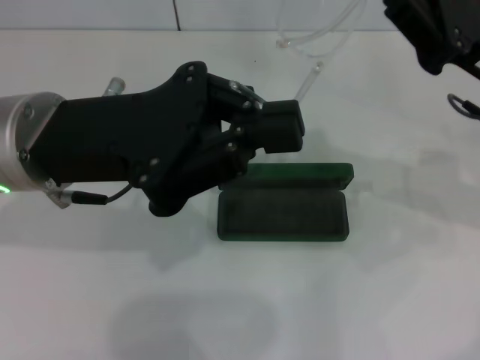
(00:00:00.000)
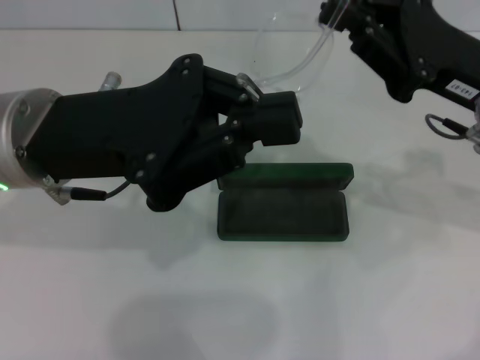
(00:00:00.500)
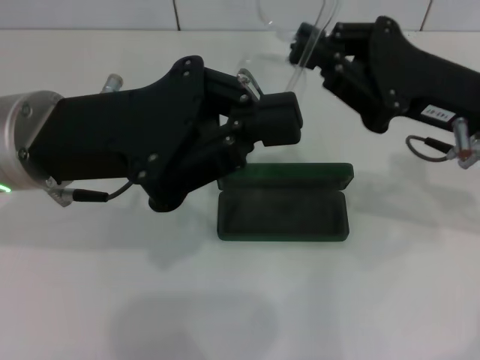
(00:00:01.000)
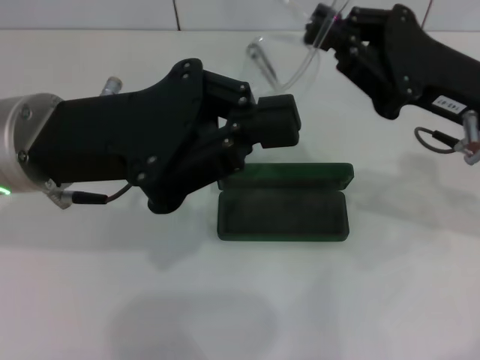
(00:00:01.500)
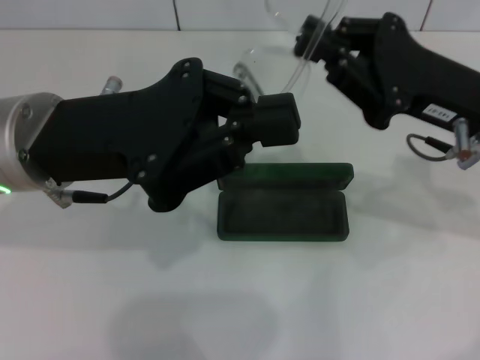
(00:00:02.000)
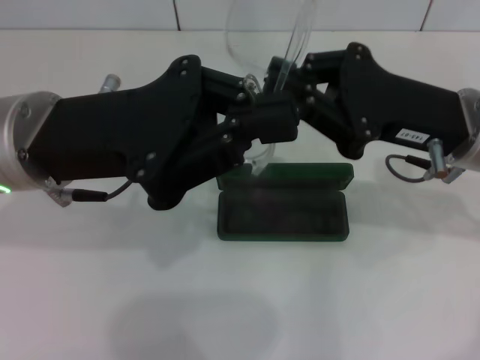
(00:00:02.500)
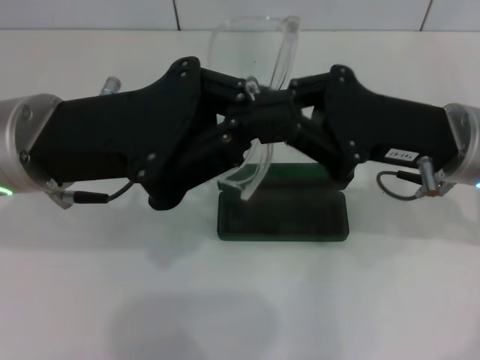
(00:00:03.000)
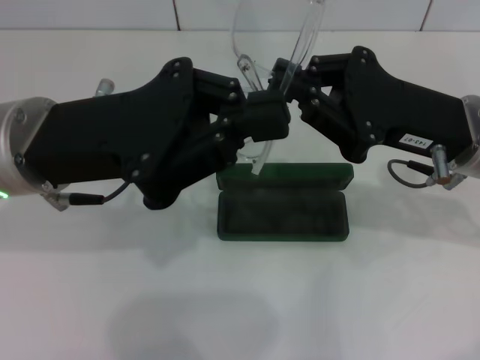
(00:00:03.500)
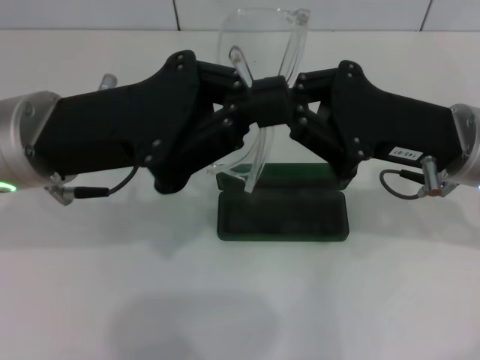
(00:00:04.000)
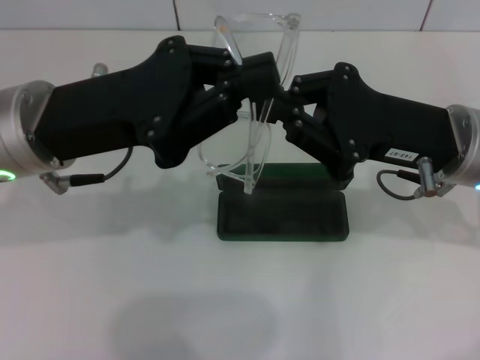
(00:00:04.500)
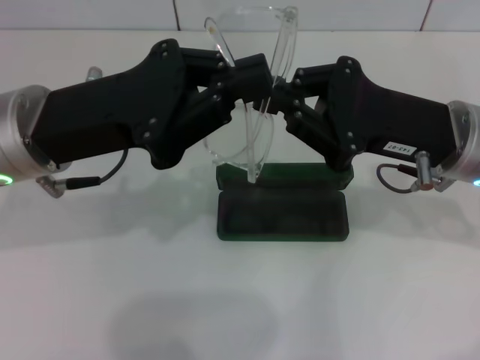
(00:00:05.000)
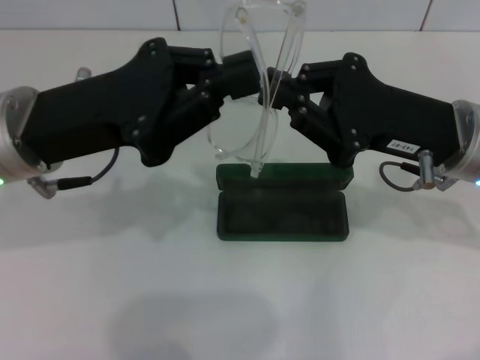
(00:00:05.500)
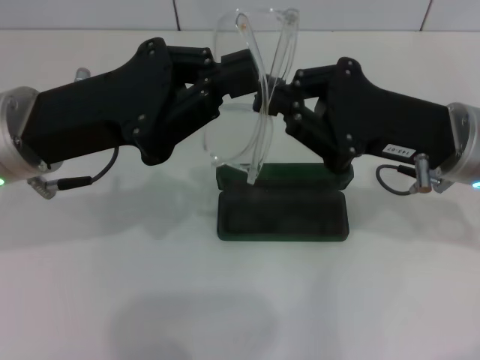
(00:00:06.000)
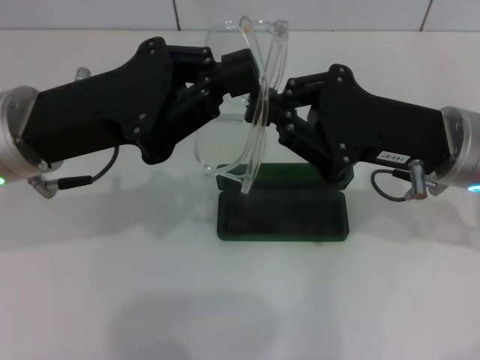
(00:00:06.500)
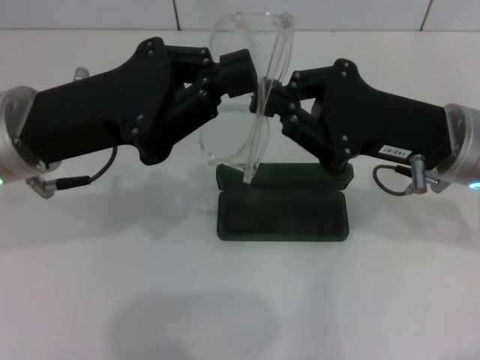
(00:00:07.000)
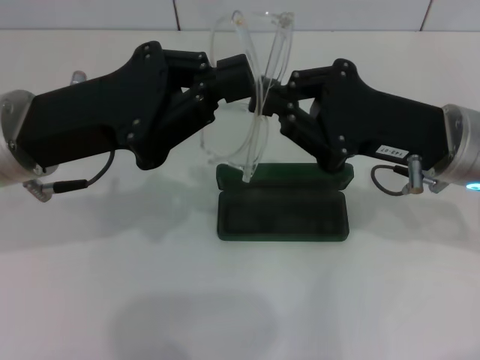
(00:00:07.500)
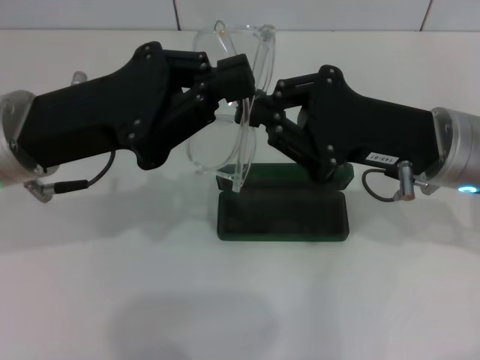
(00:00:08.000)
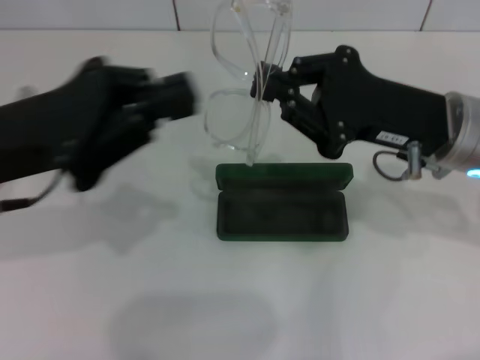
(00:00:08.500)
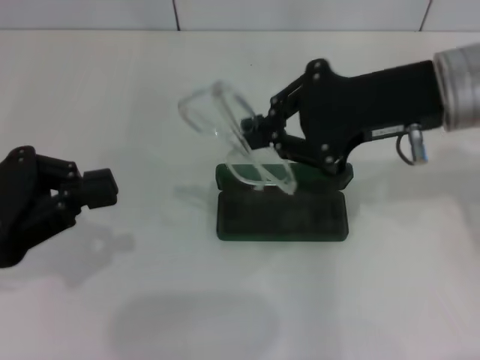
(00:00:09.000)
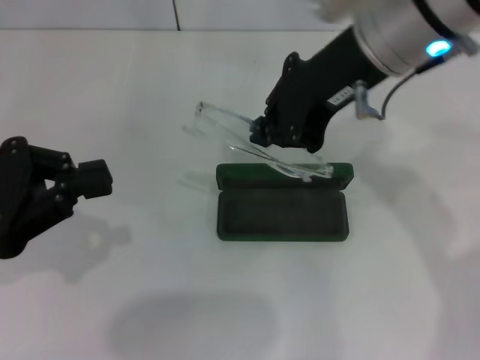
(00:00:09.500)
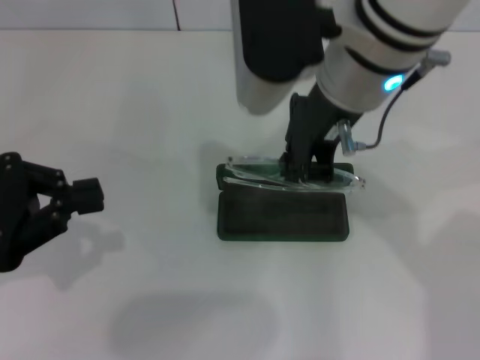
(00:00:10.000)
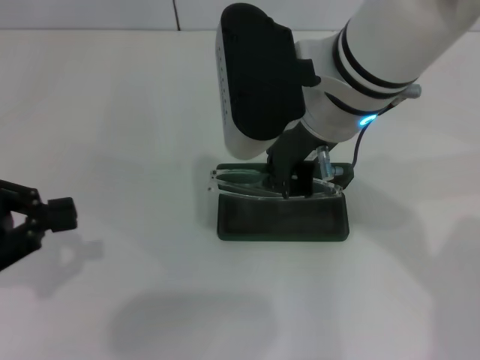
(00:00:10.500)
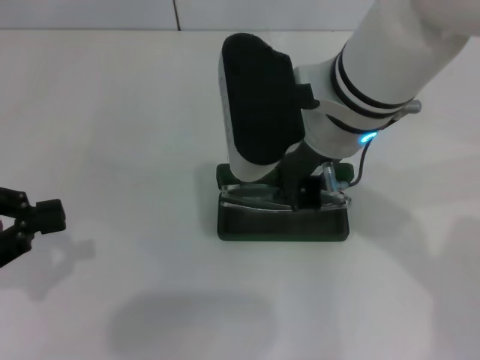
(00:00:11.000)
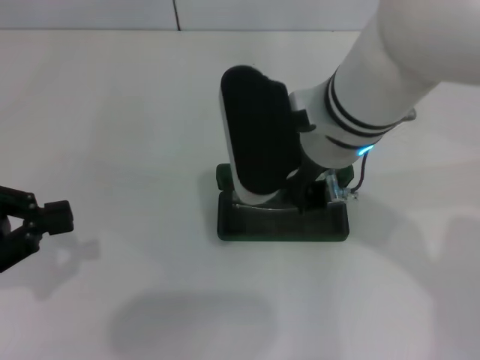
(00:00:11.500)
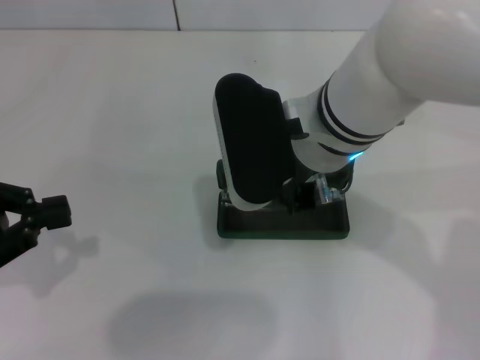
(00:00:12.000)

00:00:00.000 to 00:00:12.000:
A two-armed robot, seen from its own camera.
Step, 00:00:00.000 to 00:00:08.000: Fold the frame with your left hand.
00:00:00.000 to 00:00:06.000: The grippers move only a little.
00:00:06.000 to 00:00:08.000: The two grippers keep their place.
00:00:08.000 to 00:00:10.000: The right gripper moves upward and to the left, roughly 15 cm, while the left gripper moves to the left, approximately 10 cm.
00:00:10.000 to 00:00:12.000: The right gripper is displaced downward by some 5 cm.

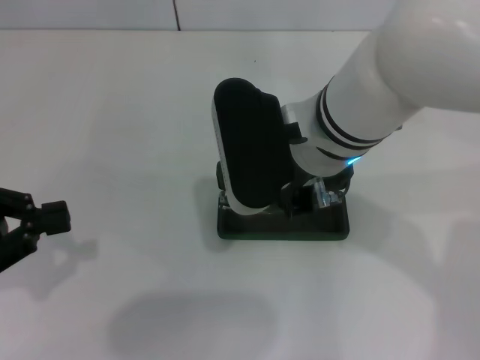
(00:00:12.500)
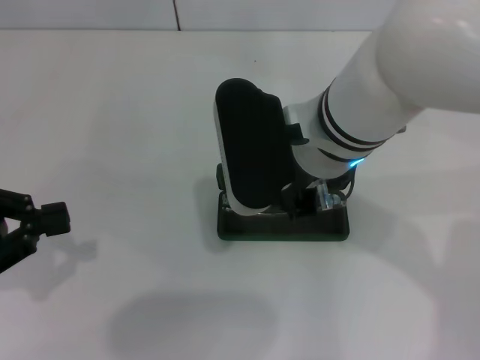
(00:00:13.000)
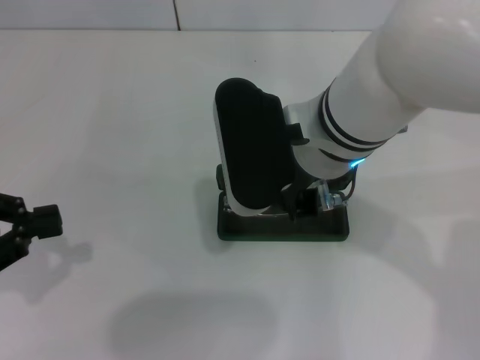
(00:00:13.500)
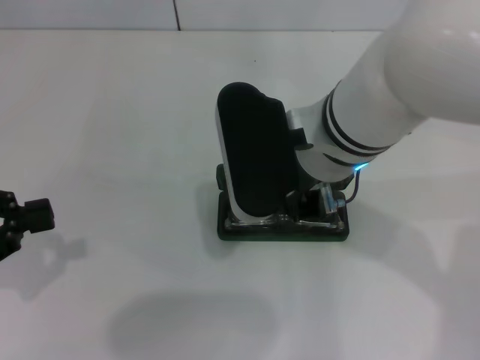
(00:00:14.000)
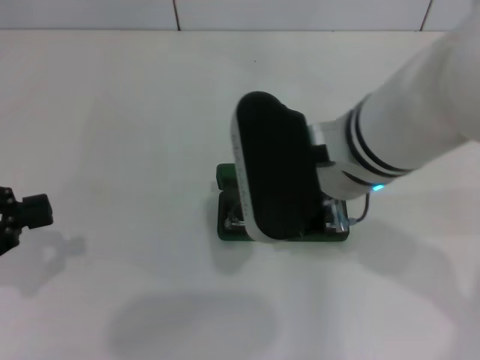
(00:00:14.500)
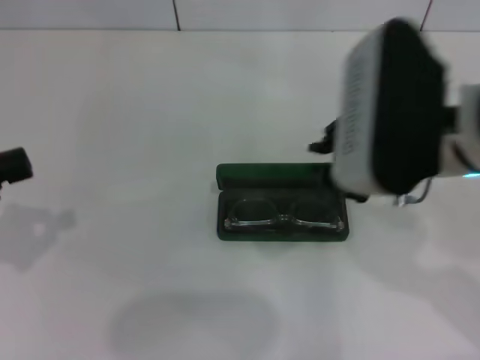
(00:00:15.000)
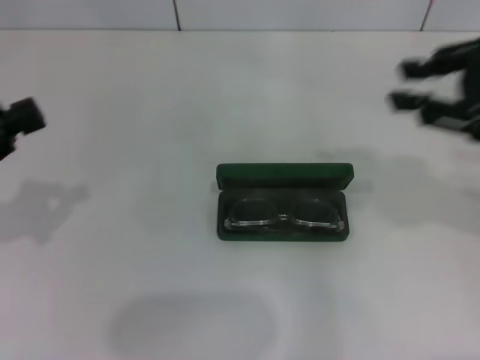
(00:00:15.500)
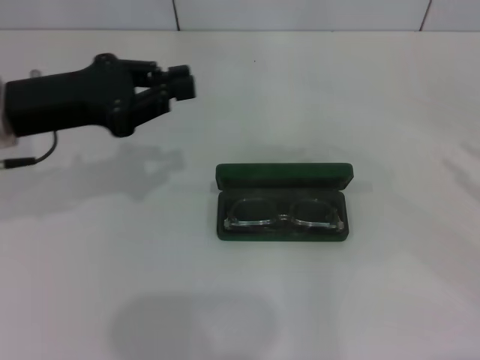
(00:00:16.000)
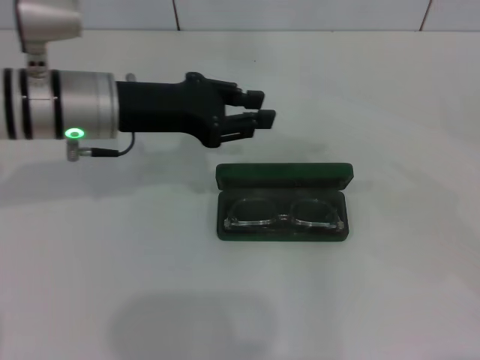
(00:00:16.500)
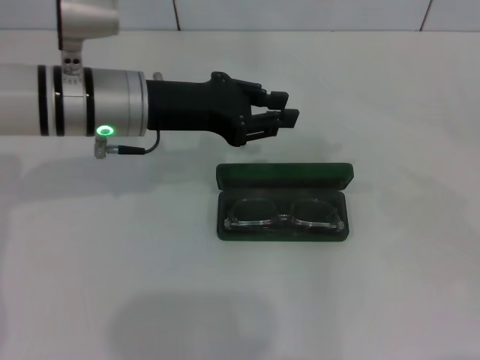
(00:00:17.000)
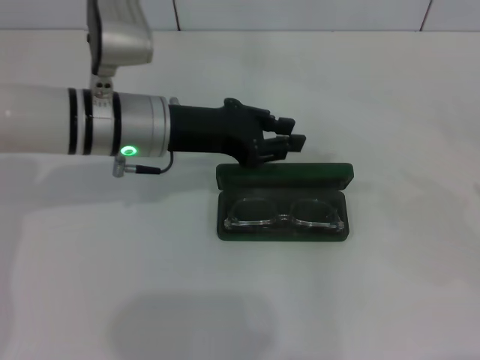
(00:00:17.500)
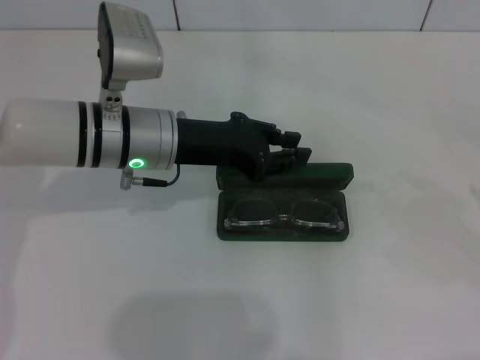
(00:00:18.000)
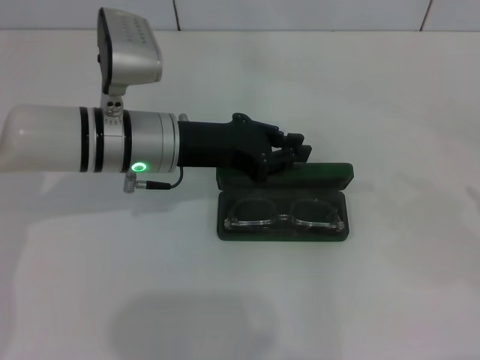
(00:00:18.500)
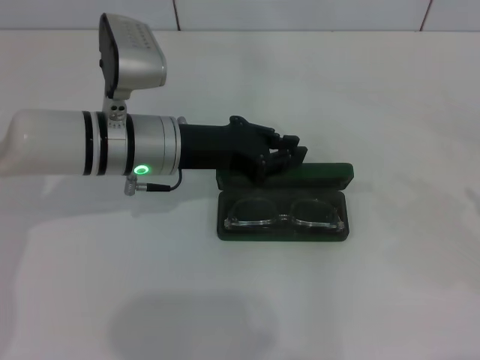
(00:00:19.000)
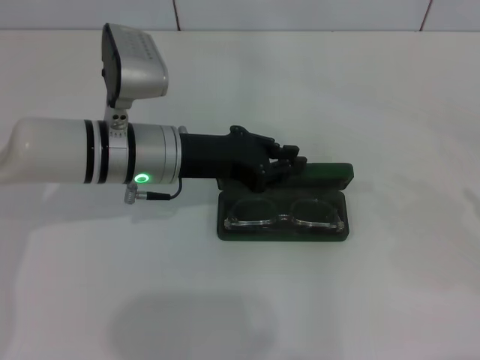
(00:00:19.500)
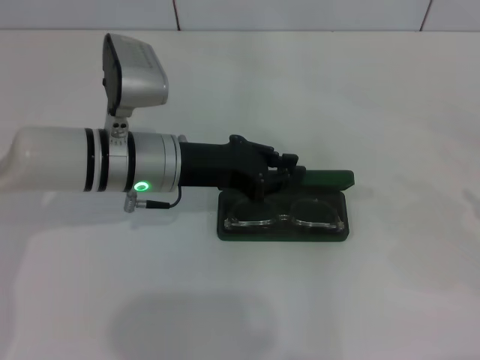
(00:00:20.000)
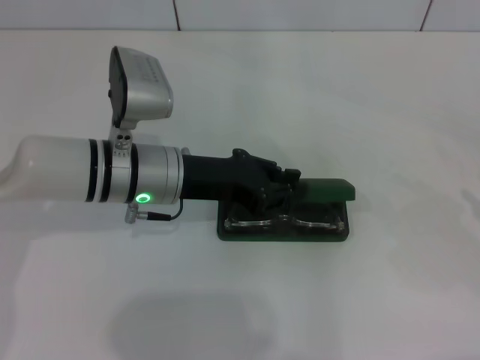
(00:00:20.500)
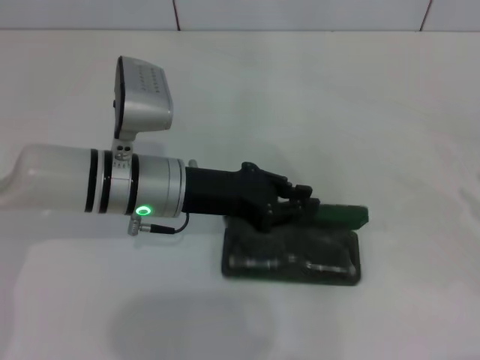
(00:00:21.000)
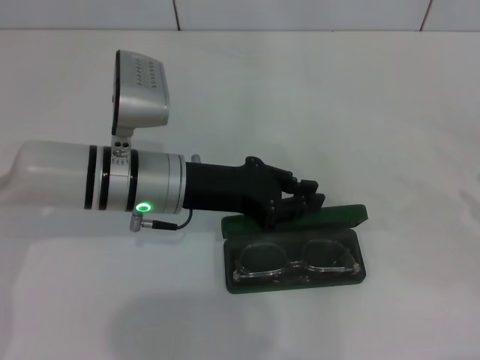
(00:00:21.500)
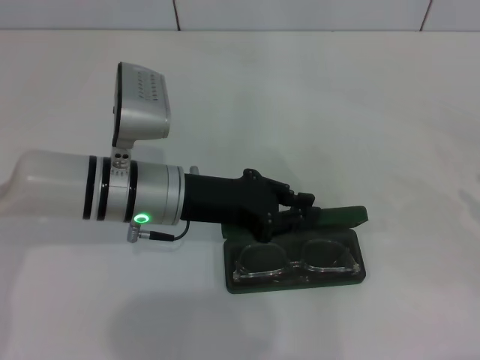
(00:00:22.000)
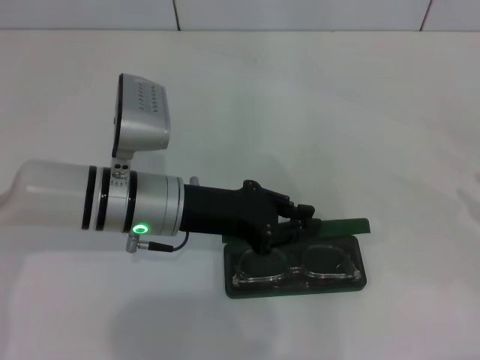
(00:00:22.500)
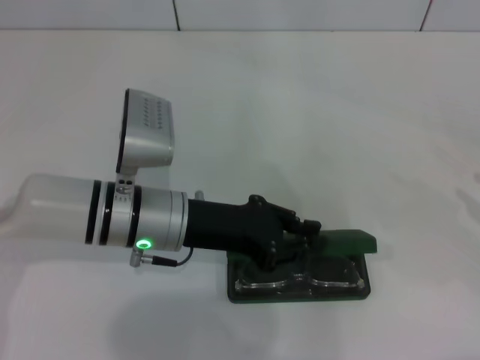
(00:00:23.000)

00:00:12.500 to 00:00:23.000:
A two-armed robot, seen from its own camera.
Step, 00:00:12.500 to 00:00:14.500: Put the glasses into the case with your right hand.
00:00:12.500 to 00:00:14.500: The grippers make only small movements.
00:00:14.500 to 00:00:16.500: The left gripper shifts about 25 cm to the right and forward, and opens its fingers. The right gripper travels to the right by approximately 40 cm.
00:00:16.500 to 00:00:19.000: The left gripper changes place by some 5 cm.
00:00:19.000 to 00:00:21.000: The grippers make only small movements.
00:00:21.000 to 00:00:23.000: There are only small adjustments of the grippers.

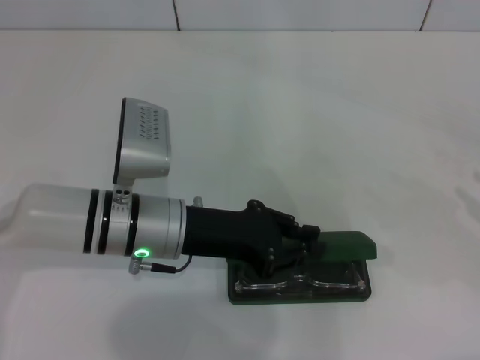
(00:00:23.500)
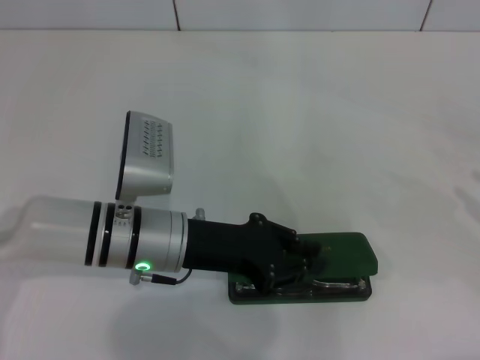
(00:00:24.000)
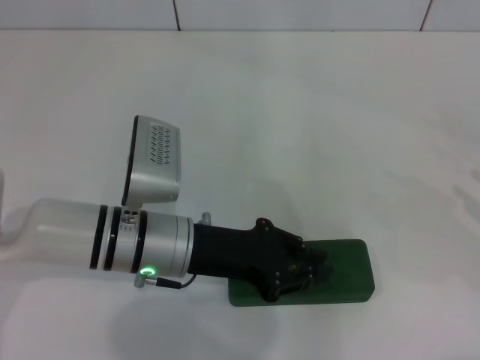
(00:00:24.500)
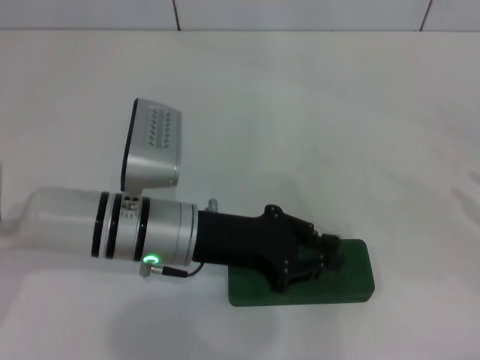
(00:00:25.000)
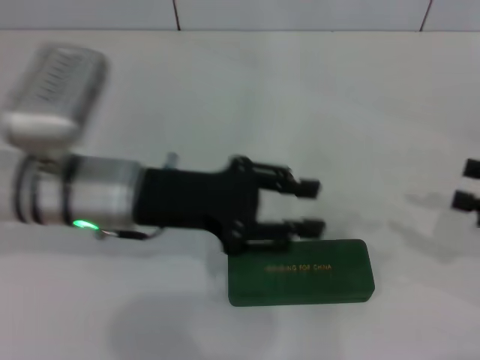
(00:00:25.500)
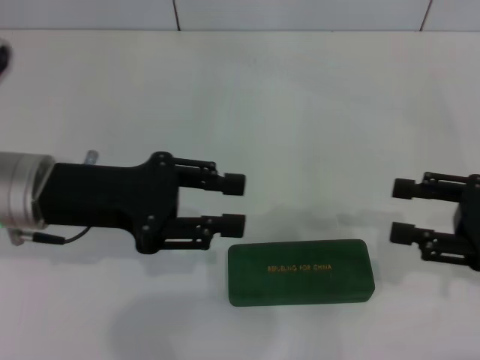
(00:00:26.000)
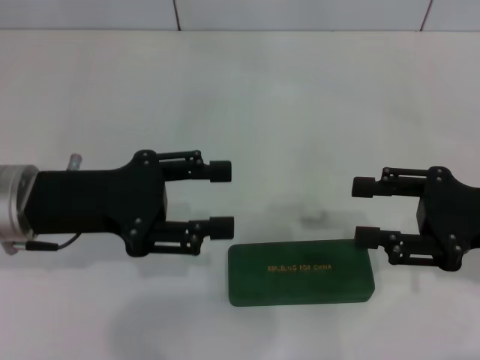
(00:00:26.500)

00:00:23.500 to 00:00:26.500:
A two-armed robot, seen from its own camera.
00:00:23.500 to 00:00:25.000: The grippers make only small movements.
00:00:25.000 to 00:00:26.500: The right gripper is displaced to the left by roughly 15 cm. Meanwhile the left gripper moves to the left and upward, approximately 15 cm, and opens its fingers.
